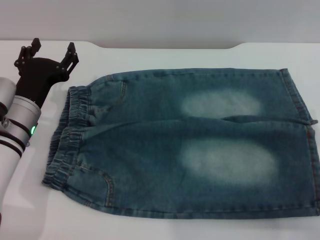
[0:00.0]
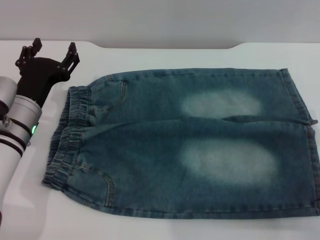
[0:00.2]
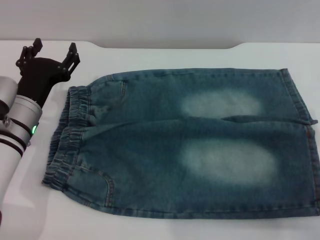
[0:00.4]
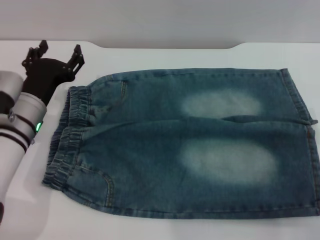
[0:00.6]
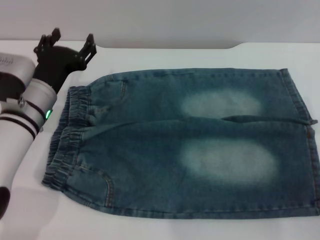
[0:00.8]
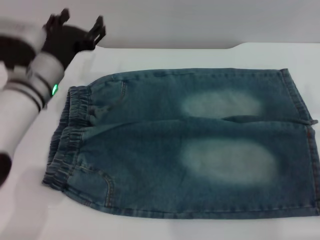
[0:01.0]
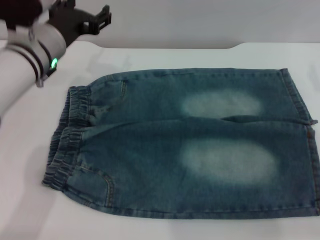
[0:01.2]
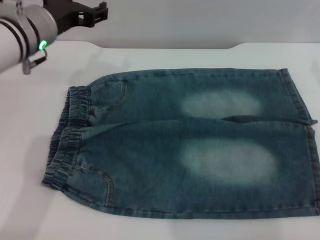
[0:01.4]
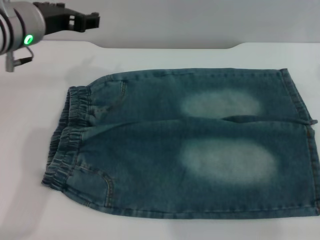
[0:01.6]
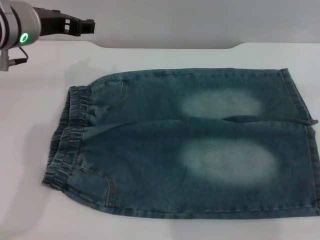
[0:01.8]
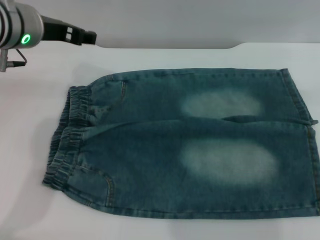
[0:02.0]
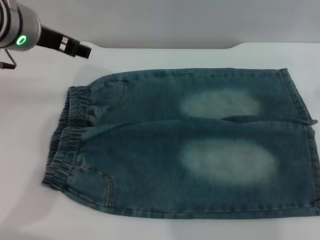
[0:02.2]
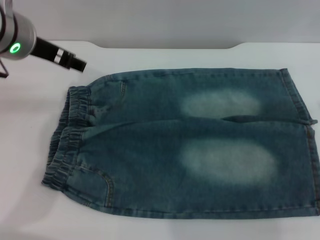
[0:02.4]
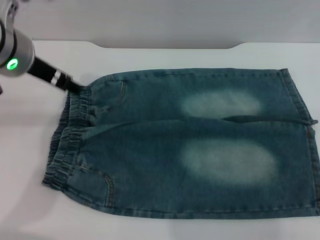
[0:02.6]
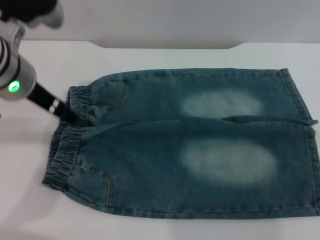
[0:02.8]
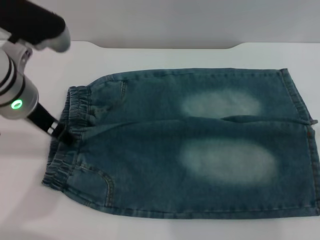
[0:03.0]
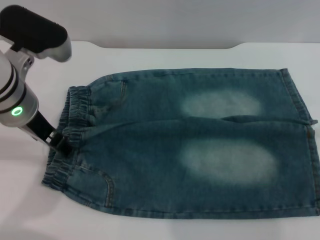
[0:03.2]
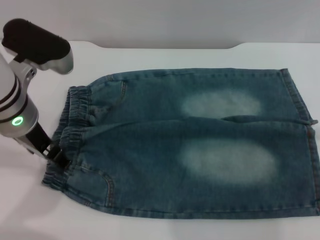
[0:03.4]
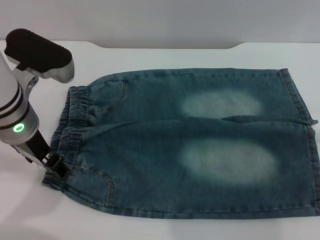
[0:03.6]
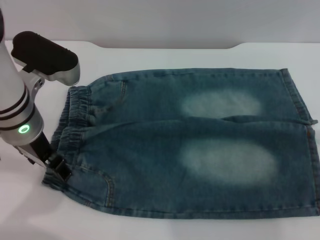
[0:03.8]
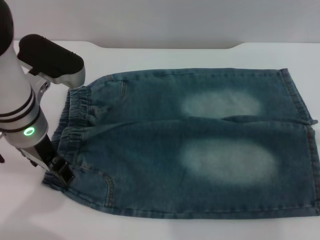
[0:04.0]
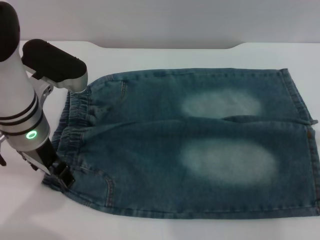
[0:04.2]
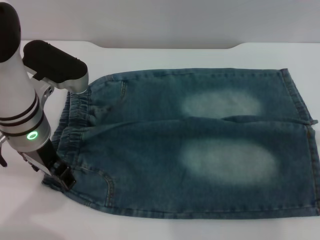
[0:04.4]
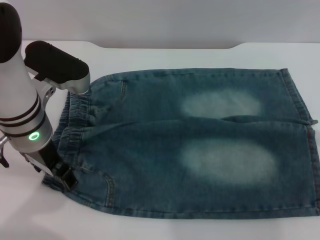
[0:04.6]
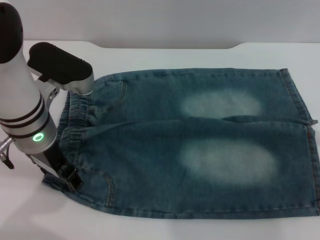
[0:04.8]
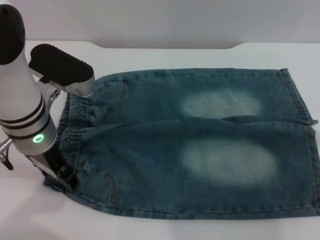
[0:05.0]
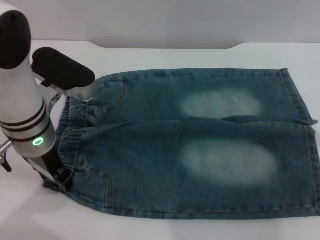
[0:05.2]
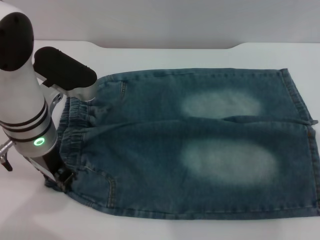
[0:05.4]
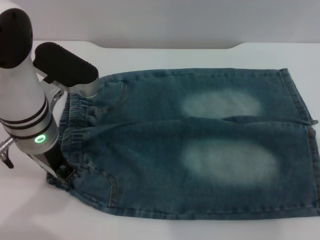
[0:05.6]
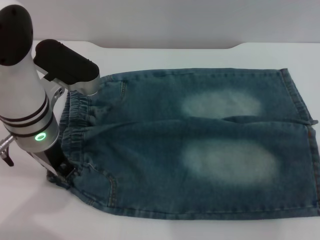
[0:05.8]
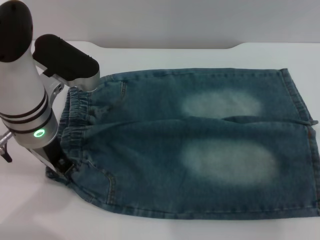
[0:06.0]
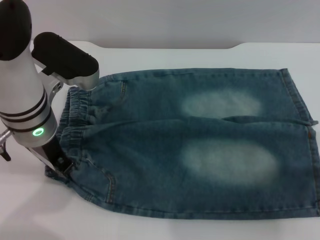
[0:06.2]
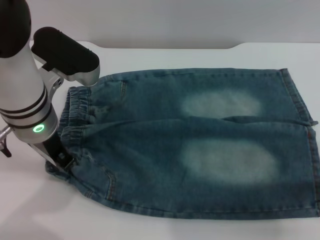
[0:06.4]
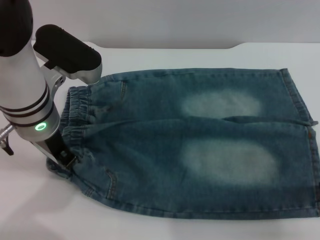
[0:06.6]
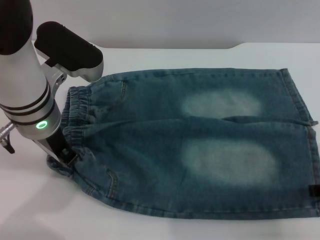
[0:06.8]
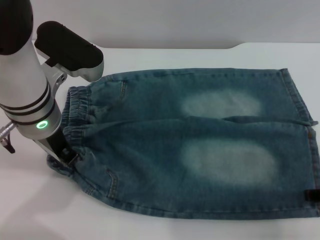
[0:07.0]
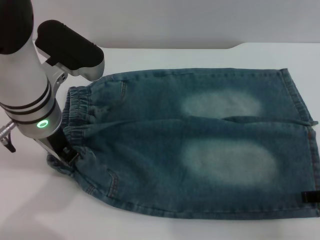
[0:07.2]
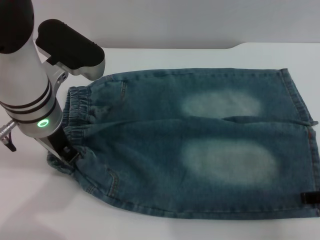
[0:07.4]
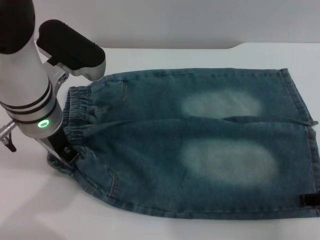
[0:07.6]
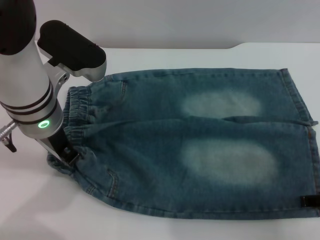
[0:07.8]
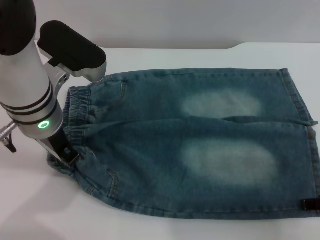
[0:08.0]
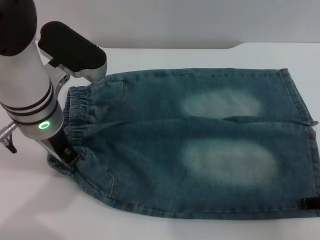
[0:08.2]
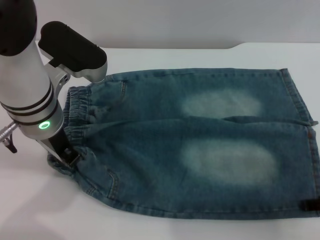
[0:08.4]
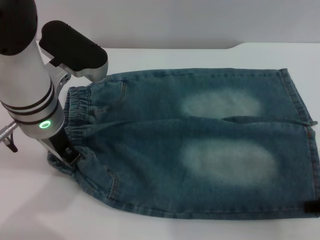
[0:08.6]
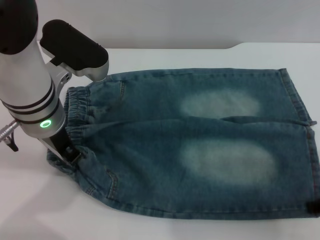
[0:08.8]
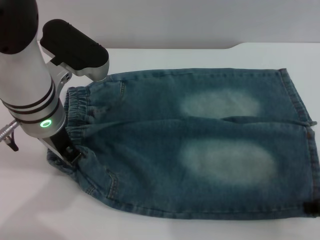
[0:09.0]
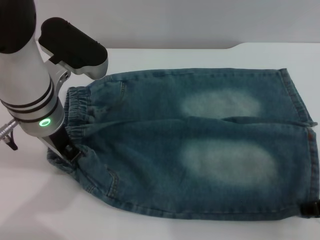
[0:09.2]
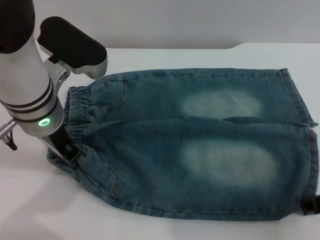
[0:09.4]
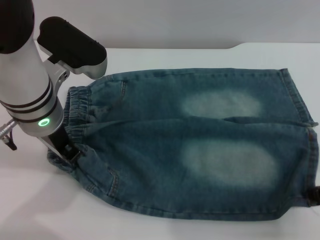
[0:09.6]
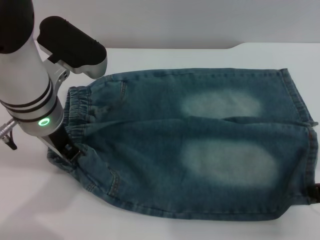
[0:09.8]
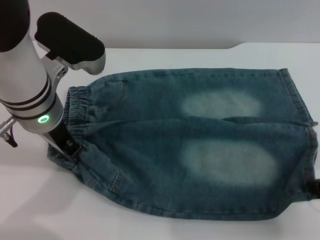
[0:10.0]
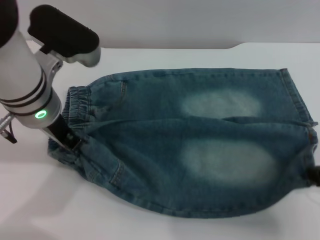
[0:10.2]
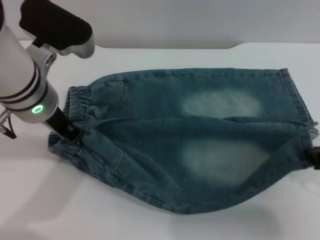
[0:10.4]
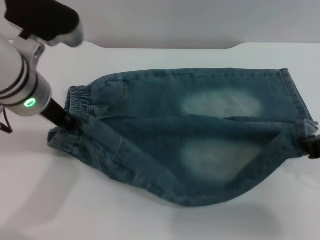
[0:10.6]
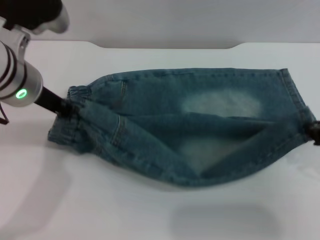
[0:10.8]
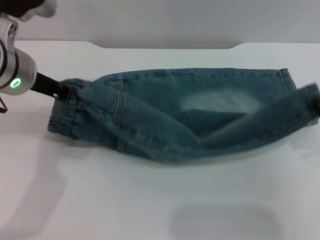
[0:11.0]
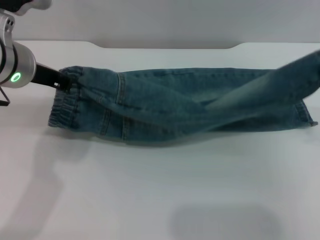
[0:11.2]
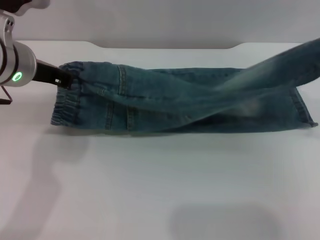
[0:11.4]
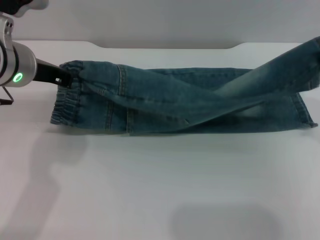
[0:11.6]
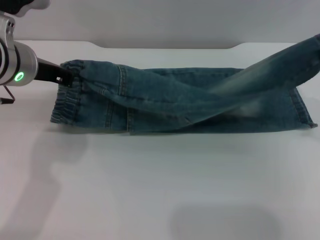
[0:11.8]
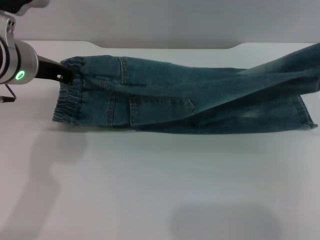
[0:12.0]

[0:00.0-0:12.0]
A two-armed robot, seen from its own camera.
0:00.0 to 0:01.6: The right gripper travels upward and forward by roughly 20 cm, while the left gripper heads upward, covering approximately 15 cm.
0:01.6 to 0:03.0: The left gripper shifts by approximately 5 cm.
0:03.0 to 0:04.4: There are only small adjustments of the grippers.
0:04.4 to 0:06.0: The left gripper closes.
0:06.0 to 0:07.6: The right gripper moves downward, about 5 cm.
0:07.6 to 0:09.0: The grippers make only small movements.
0:09.0 to 0:10.4: The right gripper travels upward by some 5 cm, and closes.
0:10.4 to 0:12.0: The right gripper shifts by approximately 5 cm.

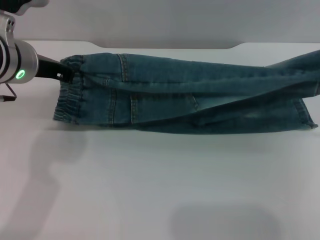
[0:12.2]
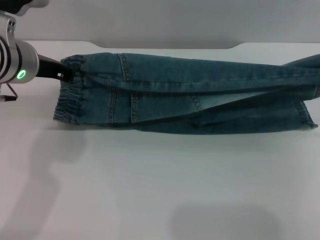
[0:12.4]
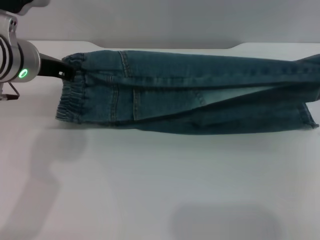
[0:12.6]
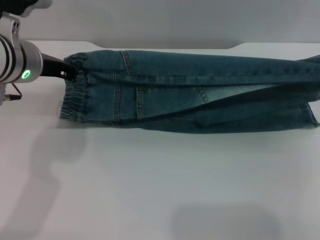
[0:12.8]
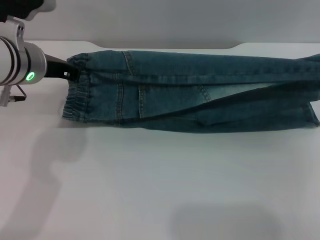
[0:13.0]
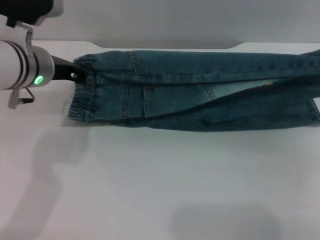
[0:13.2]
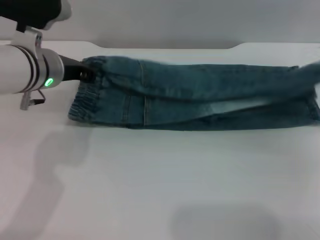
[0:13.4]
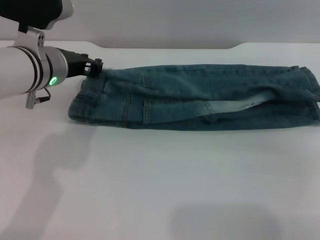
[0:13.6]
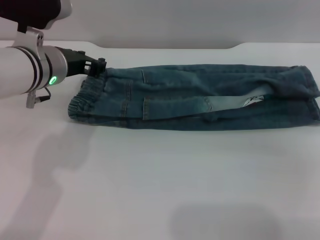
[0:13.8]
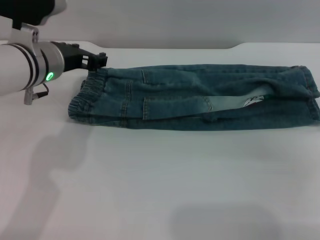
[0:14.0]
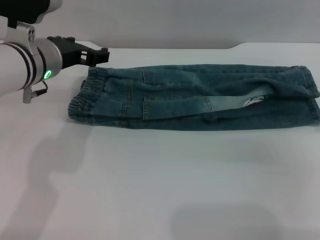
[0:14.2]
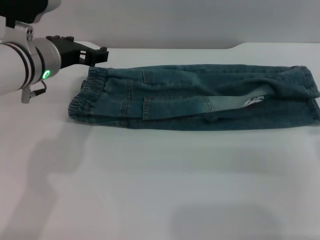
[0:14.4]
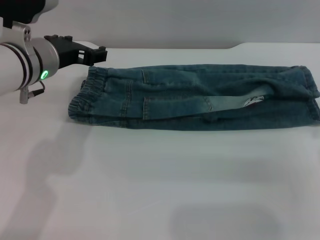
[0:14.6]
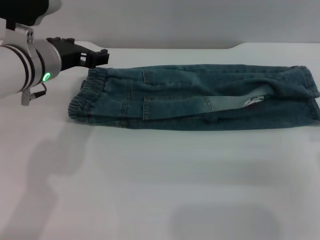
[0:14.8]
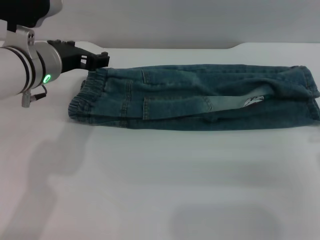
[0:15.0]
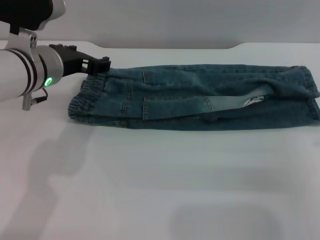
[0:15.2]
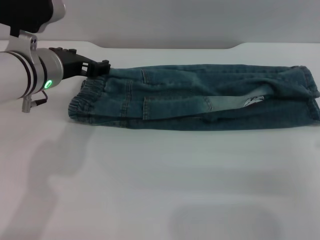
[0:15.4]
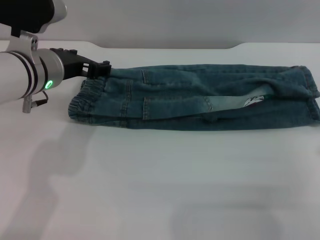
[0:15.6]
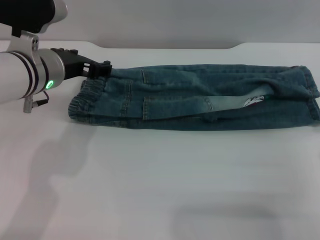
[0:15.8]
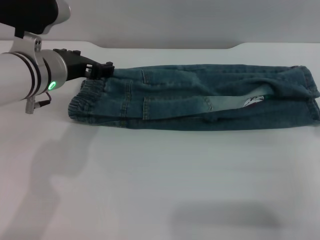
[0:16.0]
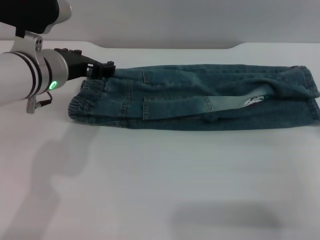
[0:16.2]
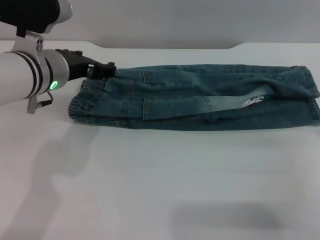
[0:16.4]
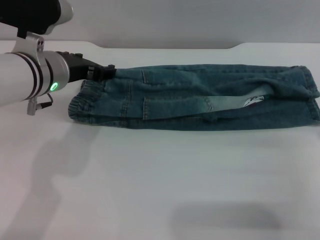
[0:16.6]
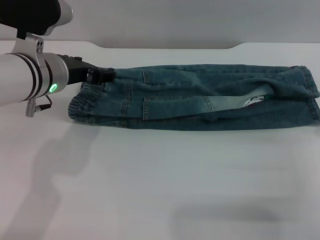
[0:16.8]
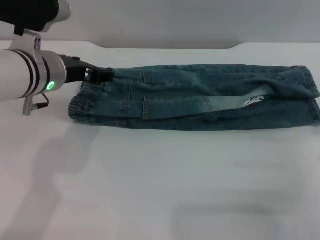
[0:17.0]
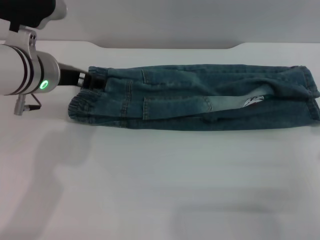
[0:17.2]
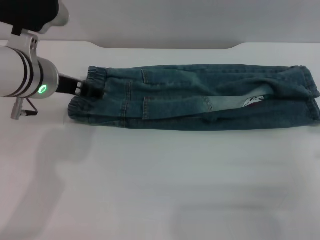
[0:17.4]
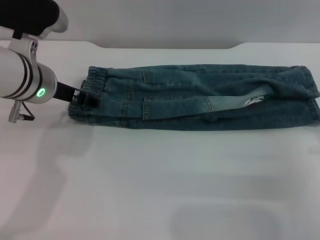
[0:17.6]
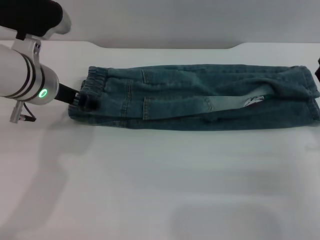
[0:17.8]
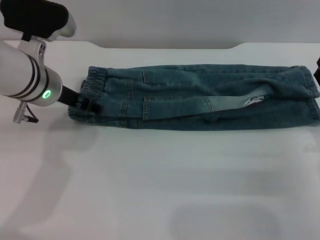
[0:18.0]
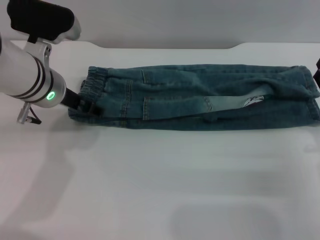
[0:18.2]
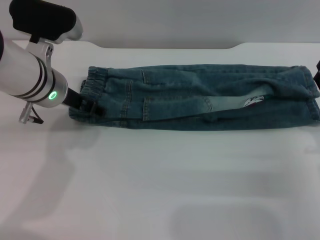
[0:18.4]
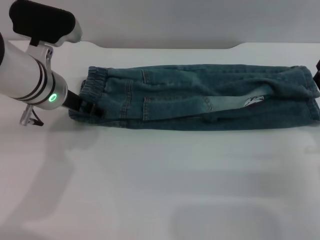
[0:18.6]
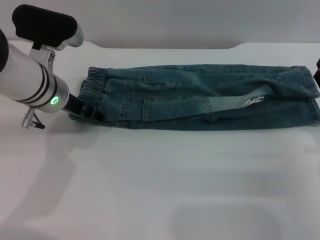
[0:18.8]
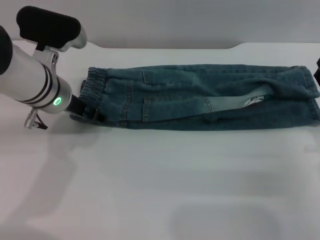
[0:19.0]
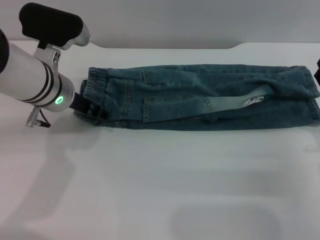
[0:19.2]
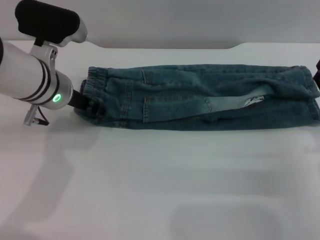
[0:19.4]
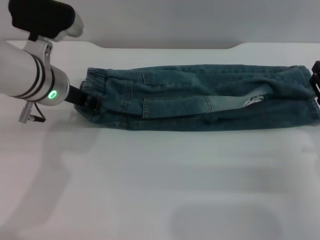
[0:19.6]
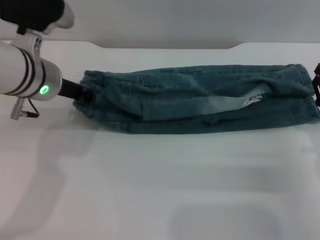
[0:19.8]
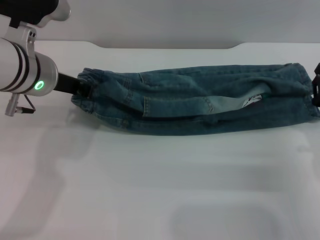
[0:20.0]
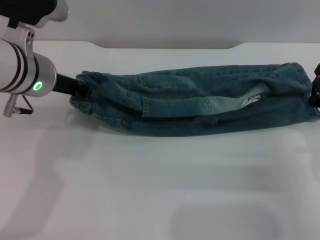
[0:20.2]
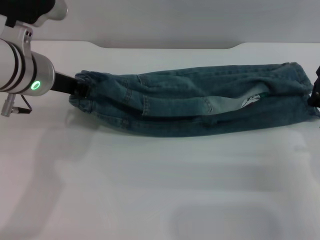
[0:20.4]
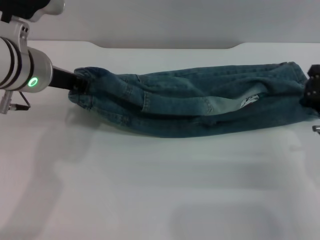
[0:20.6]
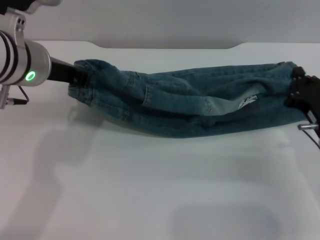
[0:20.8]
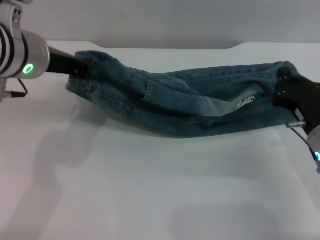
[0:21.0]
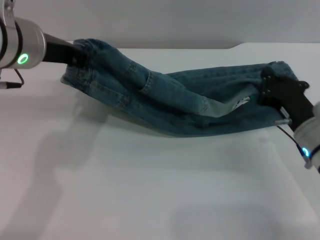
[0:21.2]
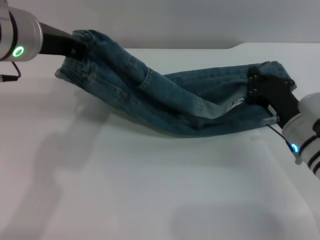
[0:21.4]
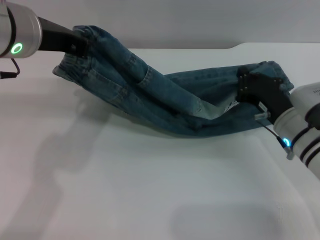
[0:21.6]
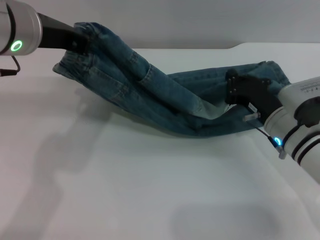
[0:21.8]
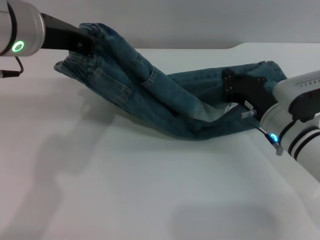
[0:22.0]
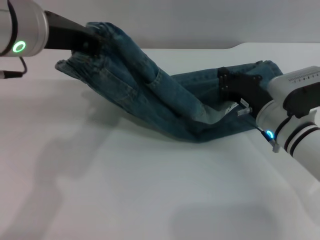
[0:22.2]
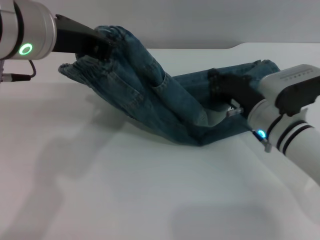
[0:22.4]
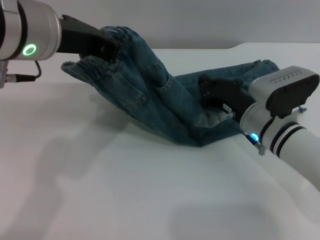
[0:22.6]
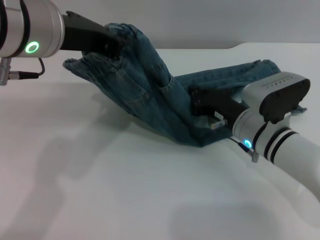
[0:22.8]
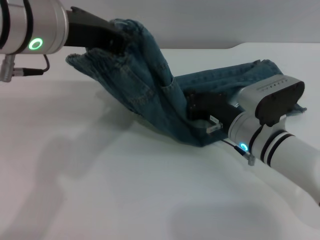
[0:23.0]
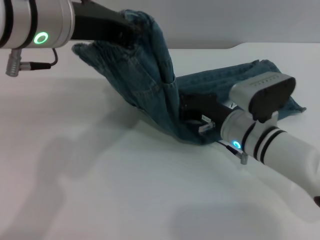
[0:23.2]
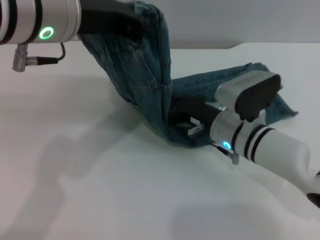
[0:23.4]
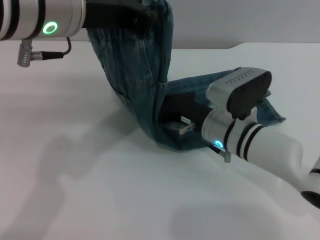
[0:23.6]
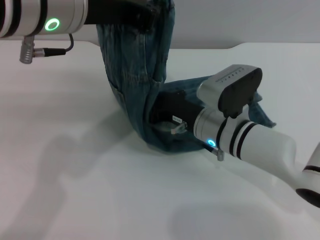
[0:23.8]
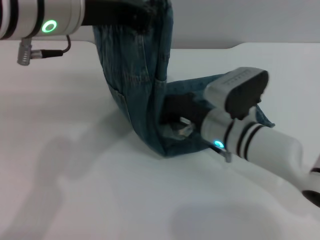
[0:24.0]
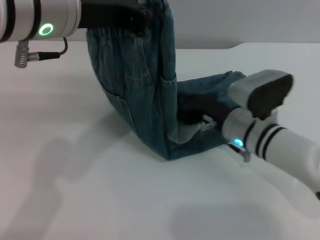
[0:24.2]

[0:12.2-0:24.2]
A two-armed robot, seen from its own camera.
Step, 0:12.2 to 0:14.2: Fold the bottom of the pants upward with both grippers.
0:12.2 to 0:13.8: The right gripper shifts by about 5 cm.
0:13.8 to 0:15.2: The left gripper opens up.
0:18.2 to 0:19.8: The left gripper closes.
0:19.8 to 0:21.2: The right gripper shifts about 5 cm to the left, and closes up, while the left gripper heads upward, covering about 5 cm.
0:21.2 to 0:22.6: The right gripper goes roughly 5 cm to the left. The left gripper ends up approximately 5 cm from where it was.
